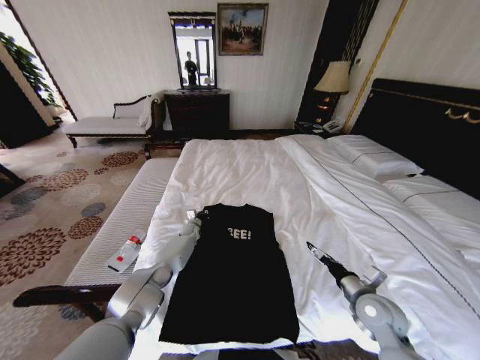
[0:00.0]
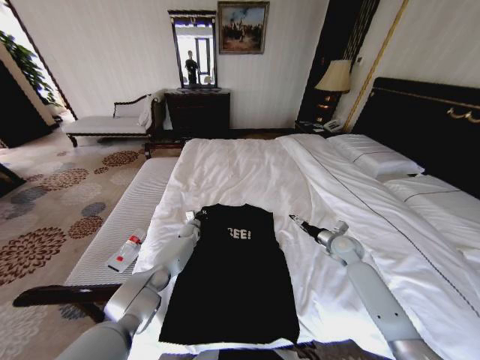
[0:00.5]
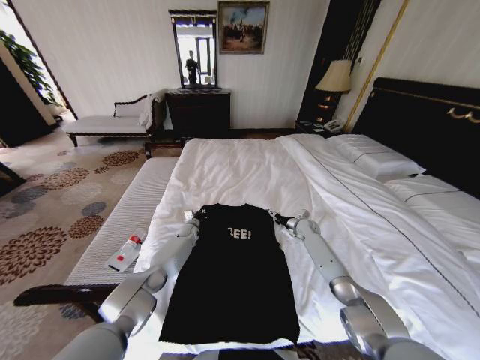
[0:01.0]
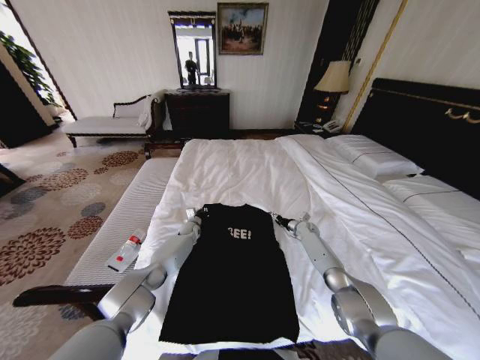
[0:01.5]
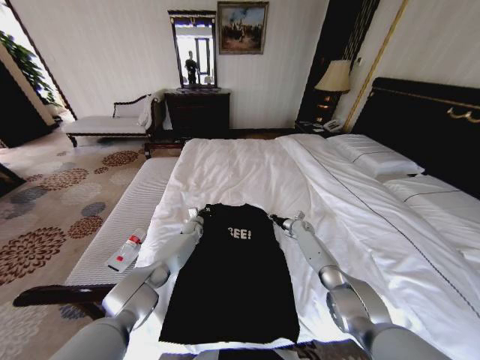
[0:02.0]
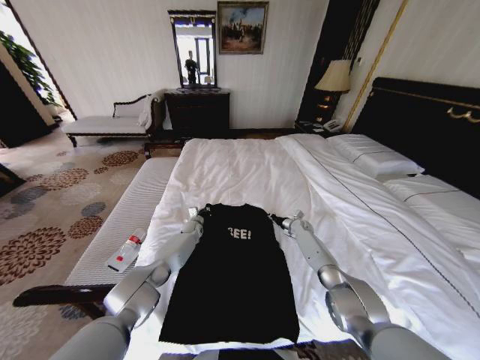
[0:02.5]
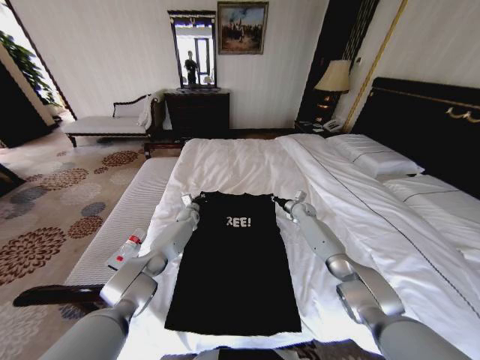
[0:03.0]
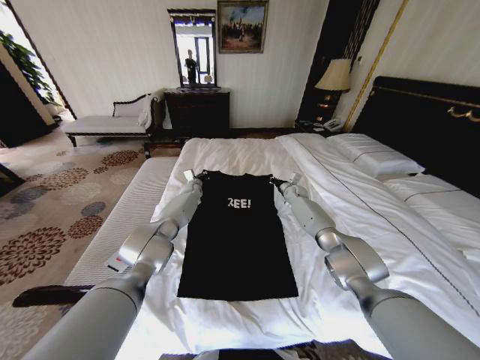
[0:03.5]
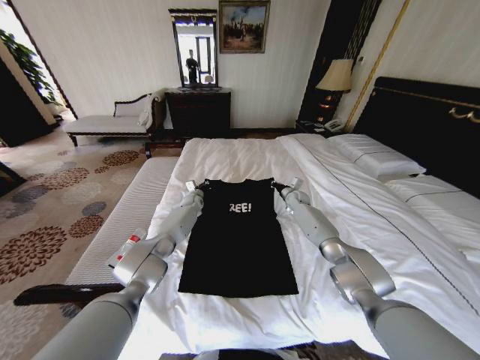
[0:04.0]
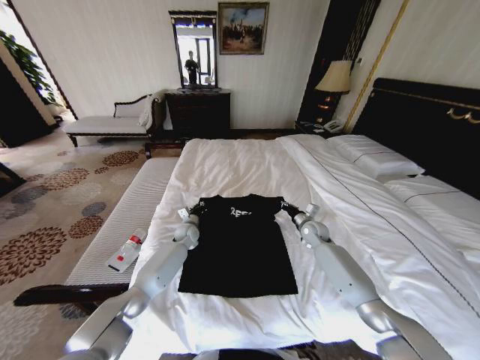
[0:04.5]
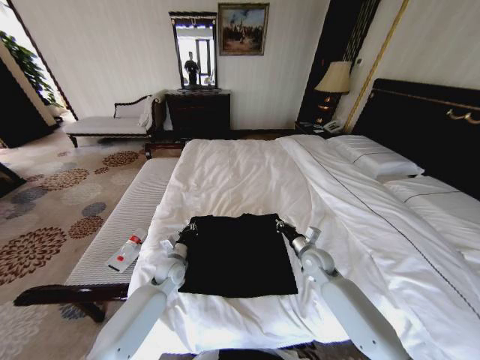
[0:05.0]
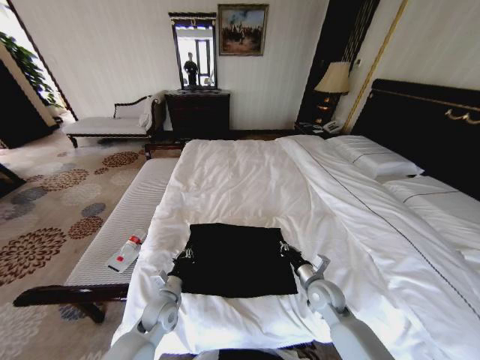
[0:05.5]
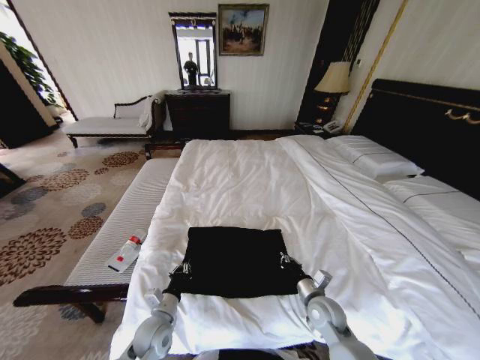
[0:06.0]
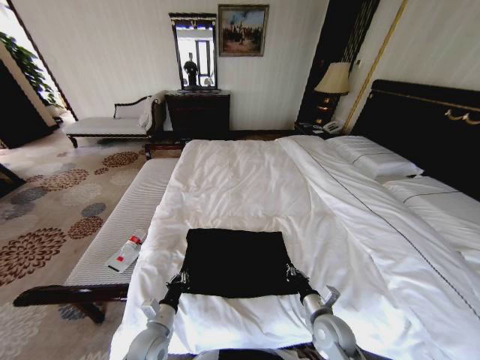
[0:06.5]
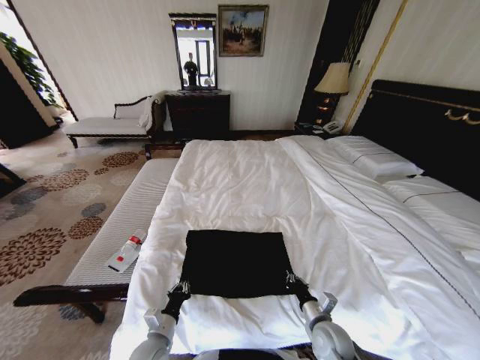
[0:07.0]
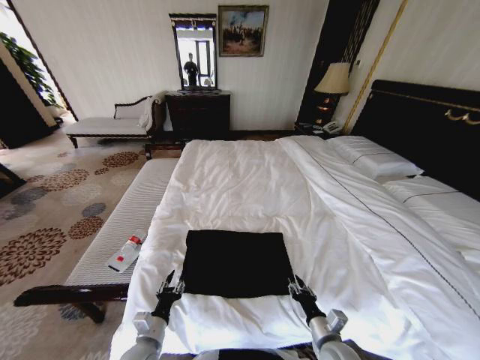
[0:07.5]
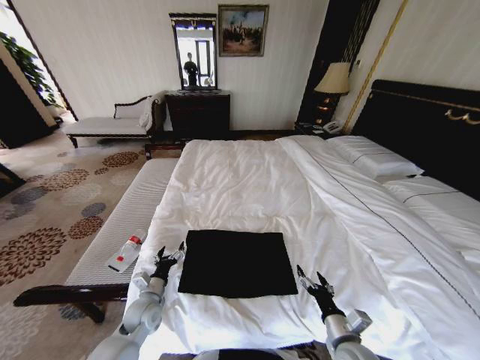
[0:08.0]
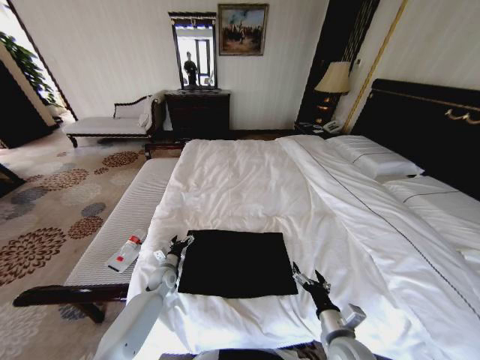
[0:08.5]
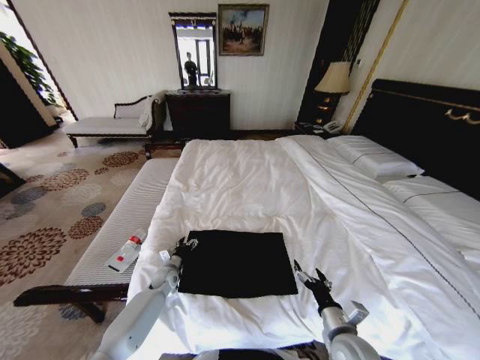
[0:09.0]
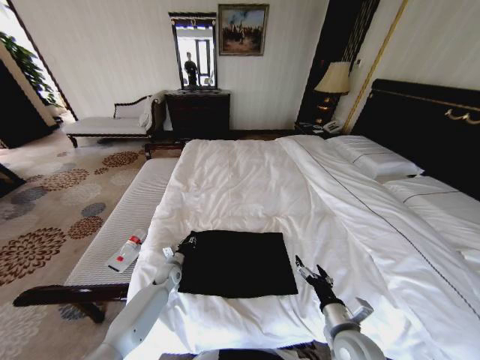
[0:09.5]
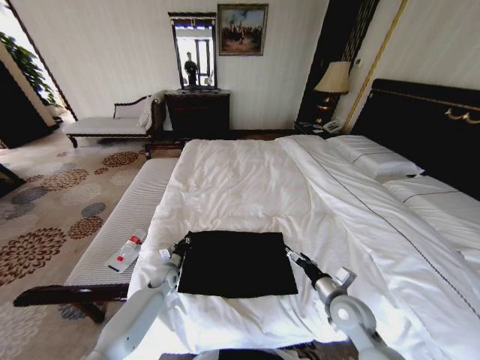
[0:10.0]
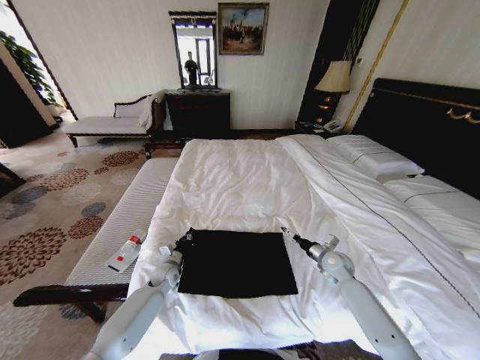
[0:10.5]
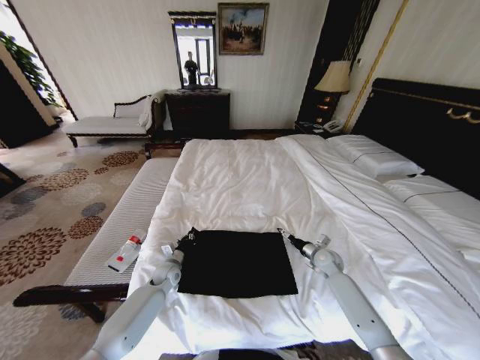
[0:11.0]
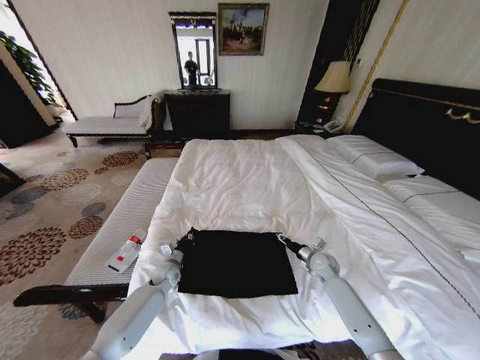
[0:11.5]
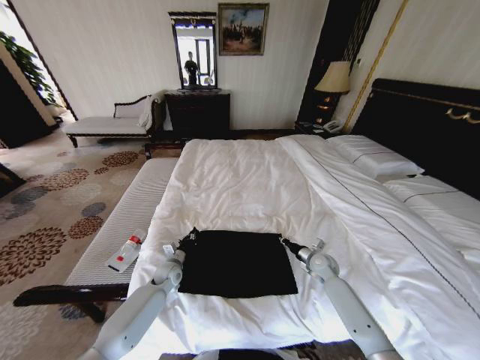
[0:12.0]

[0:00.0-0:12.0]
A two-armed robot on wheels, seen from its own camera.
Task of the whole recording: Fold the clothes on the bed.
0:00.0 to 0:02.0: The right gripper moves forward, about 35 cm, and closes.
0:02.0 to 0:04.0: Both grippers travel together upward and forward, roughly 15 cm.
0:04.0 to 0:06.0: The grippers both shift backward by about 40 cm.
0:06.0 to 0:08.0: The left gripper is displaced forward by about 5 cm, and opens its fingers, while the right gripper goes approximately 10 cm backward, and opens.
0:08.0 to 0:10.0: The left gripper goes about 15 cm forward and downward, and closes up; the right gripper heads forward, covering approximately 10 cm.
0:10.0 to 0:12.0: The right gripper travels forward and downward by some 20 cm, and closes its fingers.

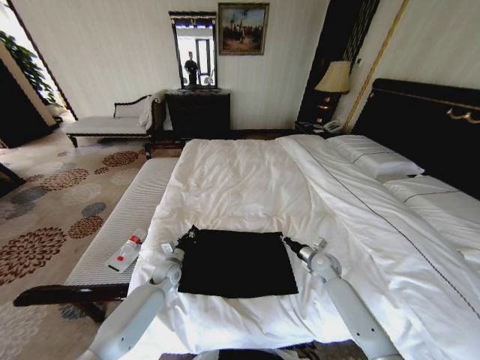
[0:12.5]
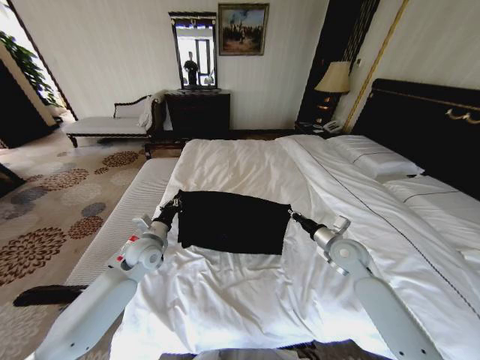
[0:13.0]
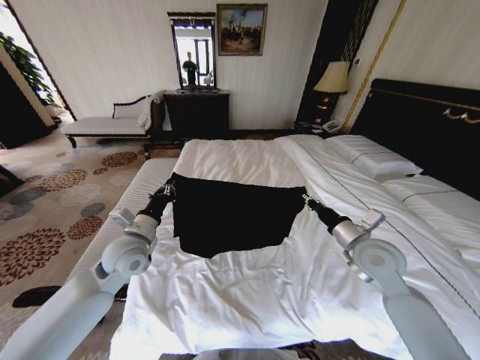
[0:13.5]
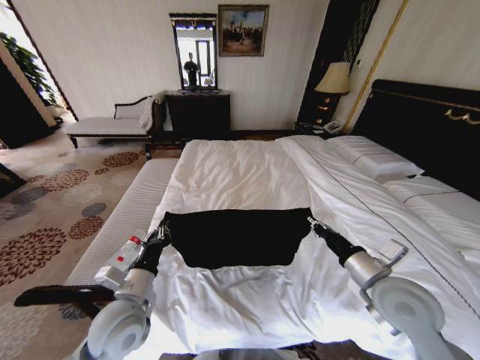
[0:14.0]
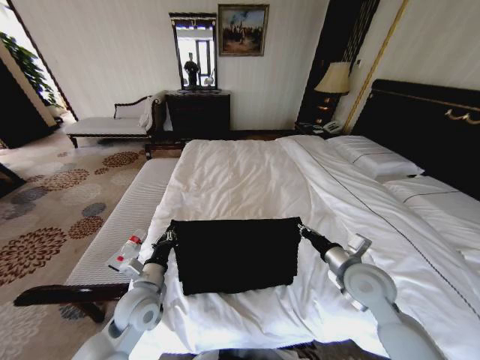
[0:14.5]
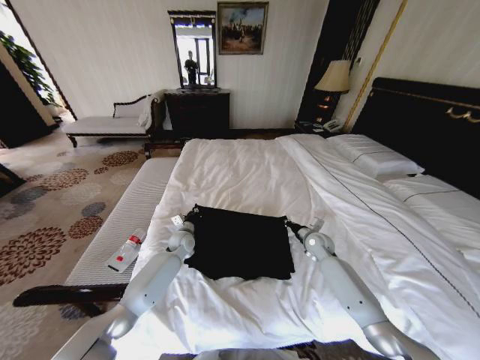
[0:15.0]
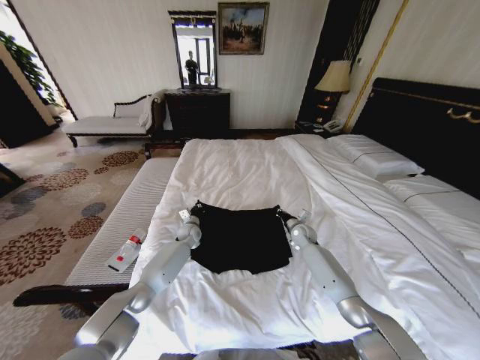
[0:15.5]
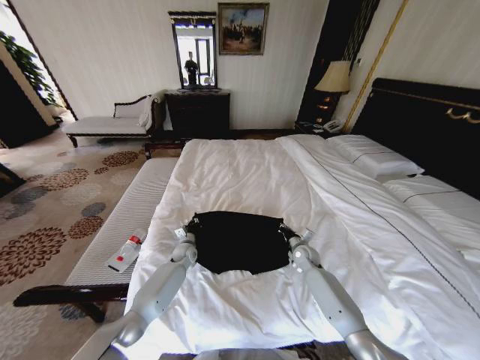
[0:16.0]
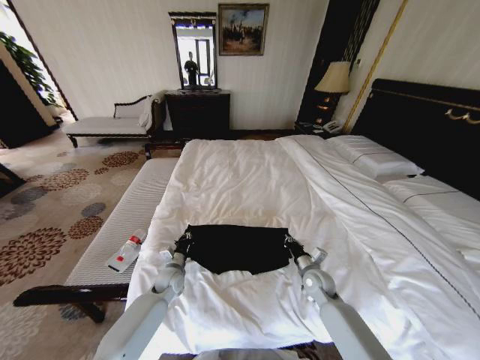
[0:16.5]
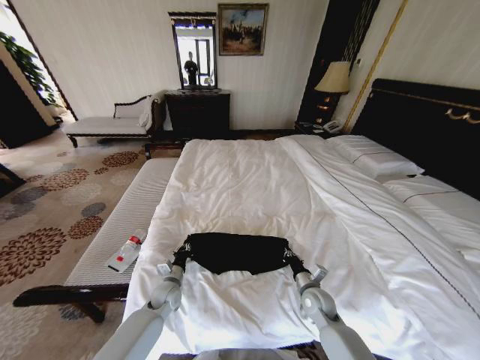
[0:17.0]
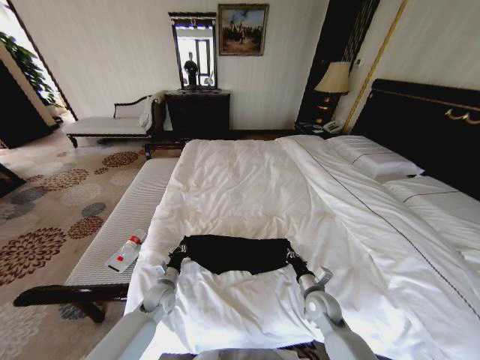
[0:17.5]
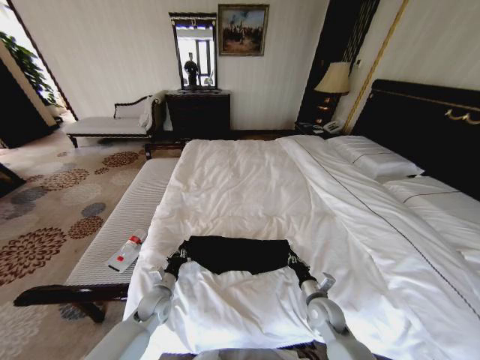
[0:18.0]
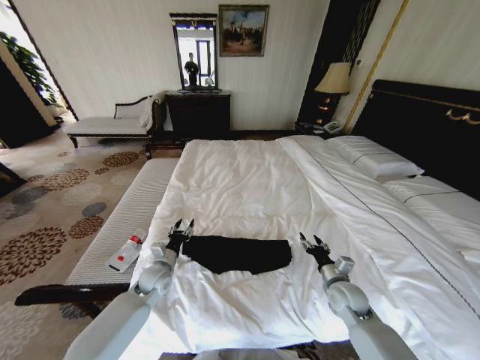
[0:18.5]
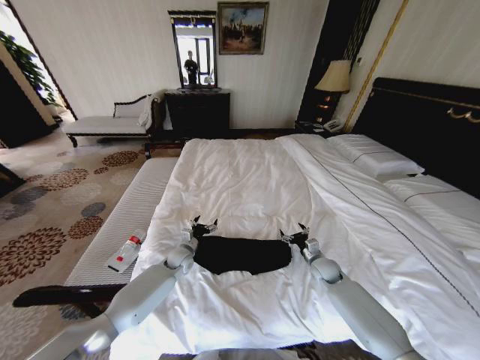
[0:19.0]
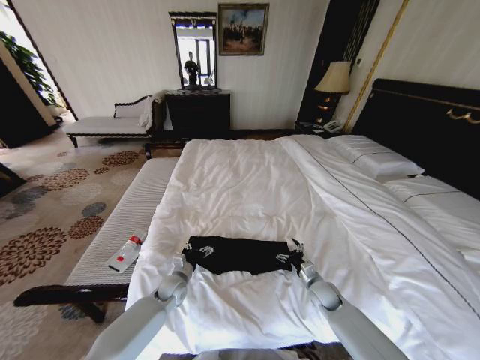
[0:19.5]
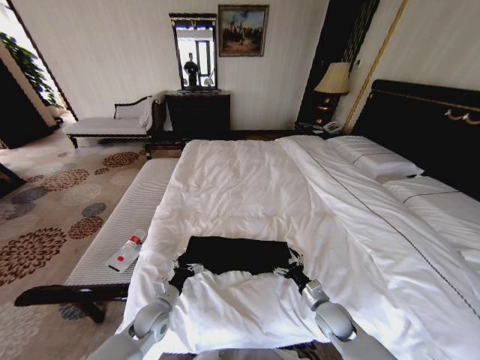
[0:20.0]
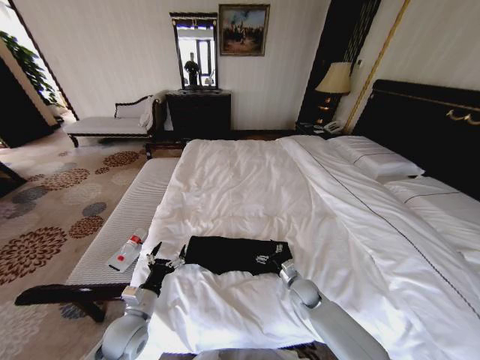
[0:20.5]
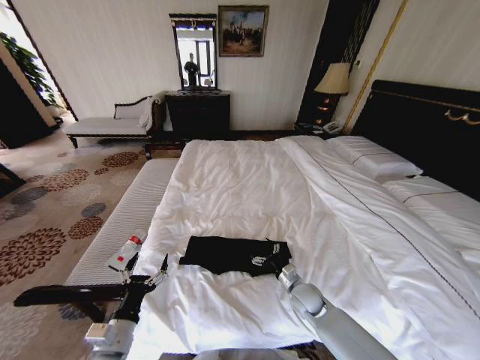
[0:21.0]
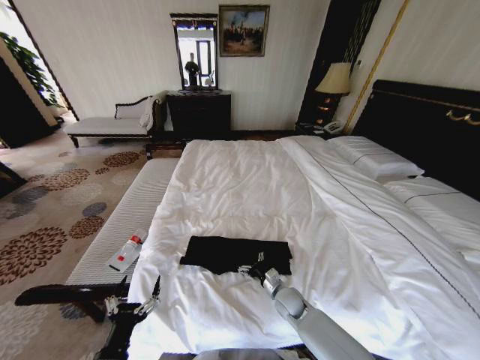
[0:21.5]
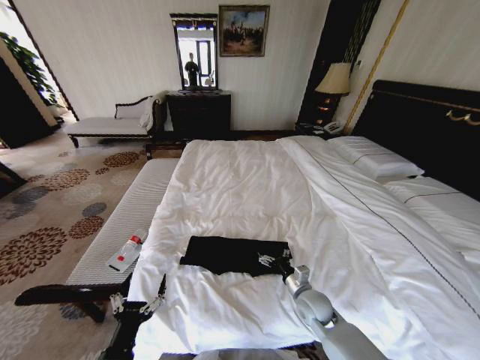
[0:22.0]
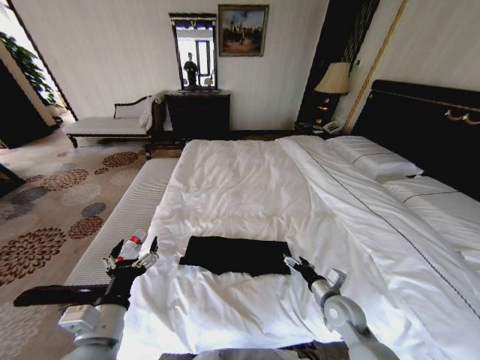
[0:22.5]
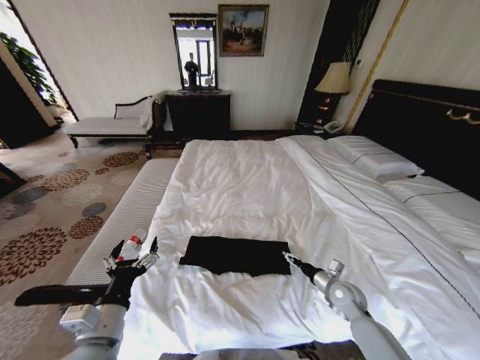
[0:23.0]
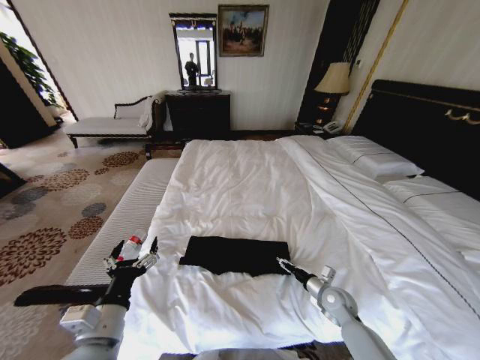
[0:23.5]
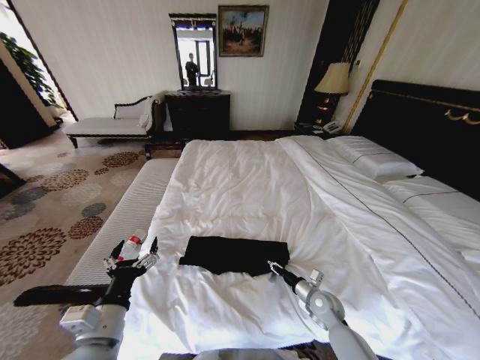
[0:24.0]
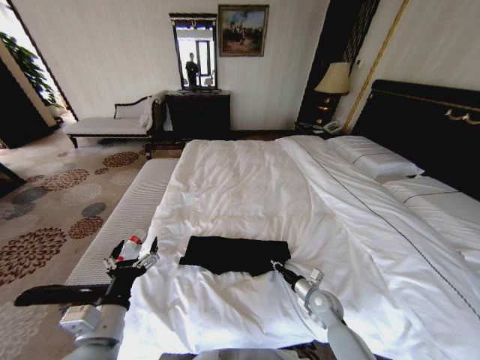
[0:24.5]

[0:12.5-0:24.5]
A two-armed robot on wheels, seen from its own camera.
Task of the whole recording: Fold the clothes on the bed.
0:12.5 to 0:14.5: The two grippers go roughly 20 cm upward and backward.
0:14.5 to 0:16.5: The right gripper shifts roughly 20 cm downward, and moves approximately 25 cm forward and comes back; the left gripper moves downward and forward, roughly 20 cm.
0:16.5 to 0:18.5: The left gripper heads upward, covering approximately 5 cm, and opens its fingers, while the right gripper shifts some 5 cm backward, and opens.
0:18.5 to 0:20.5: The right gripper goes forward and backward, roughly 15 cm each way, reversing 2 times, and opens up, while the left gripper is displaced backward by approximately 15 cm, and opens up.
0:20.5 to 0:22.5: The left gripper goes about 15 cm upward and backward, while the right gripper travels upward, backward and to the right by some 15 cm.
0:22.5 to 0:24.5: The right gripper travels downward by approximately 5 cm, and closes up.

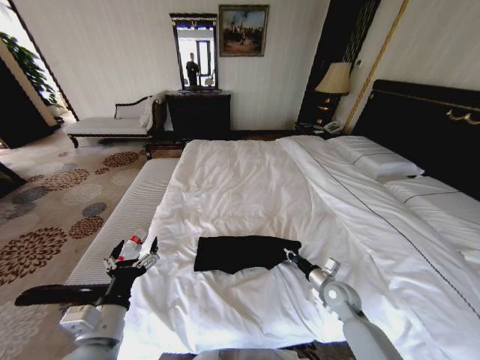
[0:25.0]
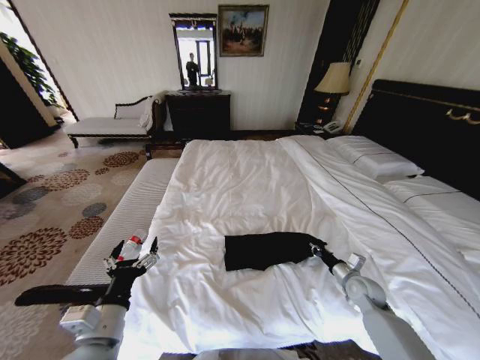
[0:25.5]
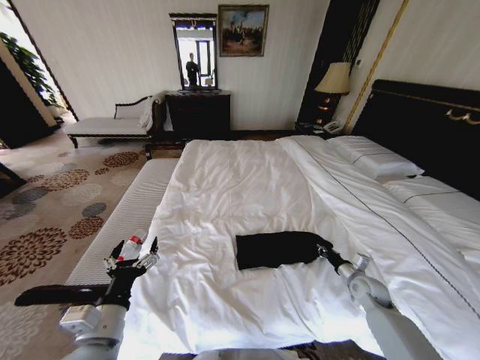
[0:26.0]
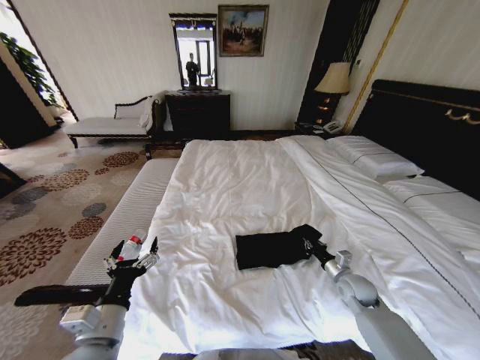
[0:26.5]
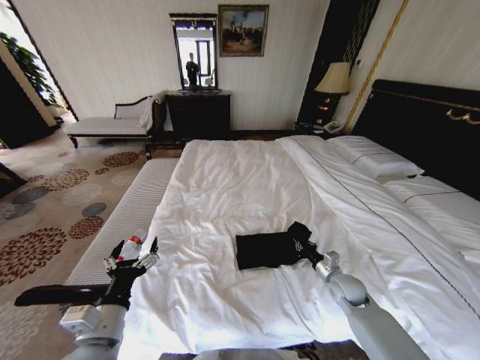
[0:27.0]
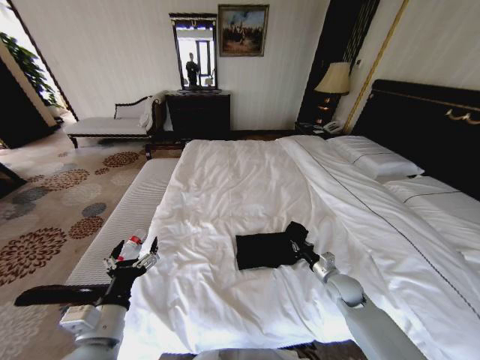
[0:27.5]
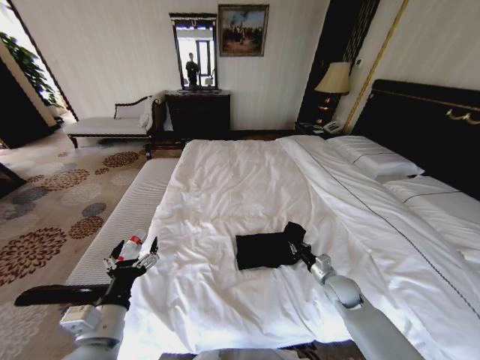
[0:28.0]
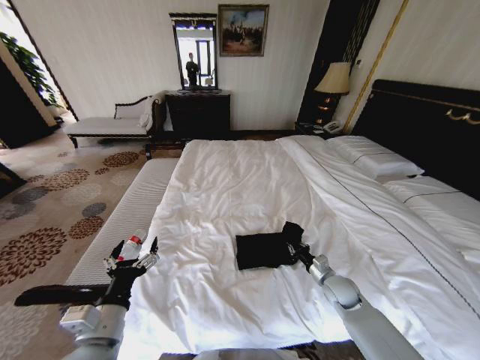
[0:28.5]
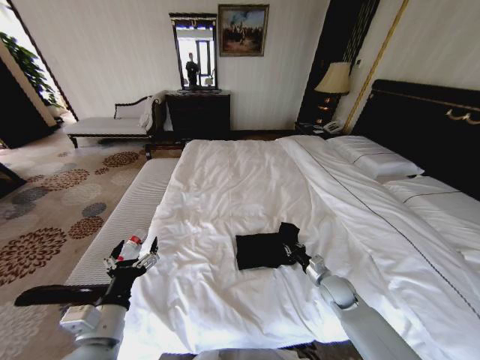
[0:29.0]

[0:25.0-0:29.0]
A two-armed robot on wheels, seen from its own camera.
Task of the whole recording: Fold the clothes on the bed.
0:25.0 to 0:27.0: The right gripper goes to the right and returns, approximately 10 cm each way.
0:27.0 to 0:29.0: The grippers move only a little.
